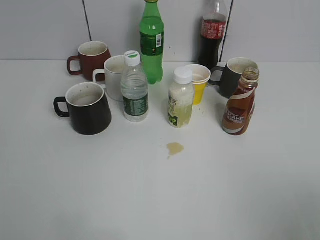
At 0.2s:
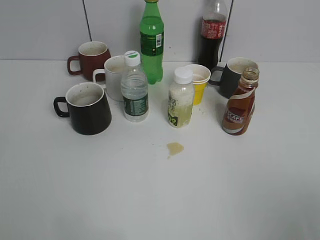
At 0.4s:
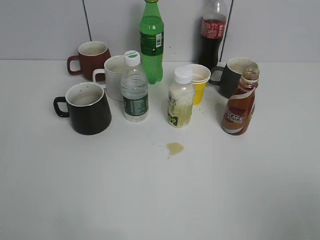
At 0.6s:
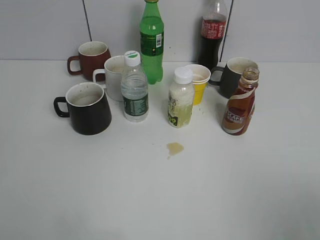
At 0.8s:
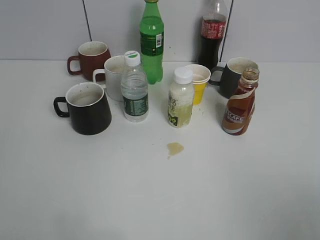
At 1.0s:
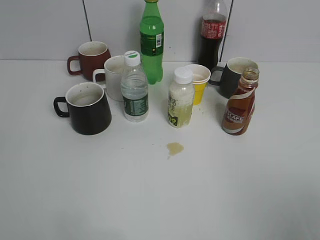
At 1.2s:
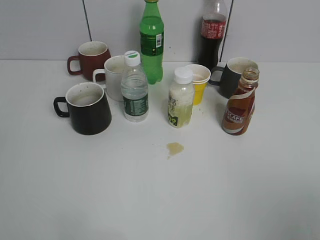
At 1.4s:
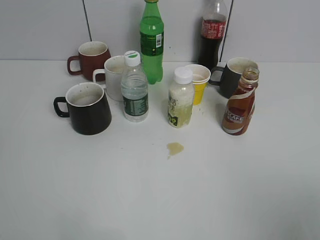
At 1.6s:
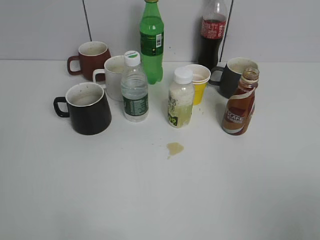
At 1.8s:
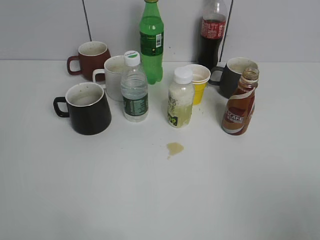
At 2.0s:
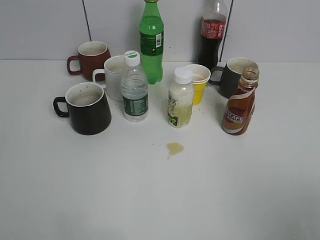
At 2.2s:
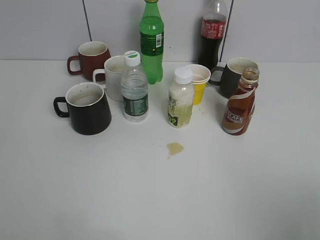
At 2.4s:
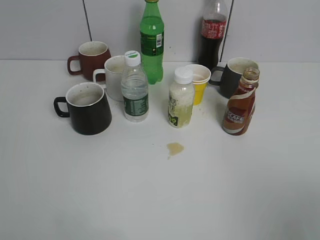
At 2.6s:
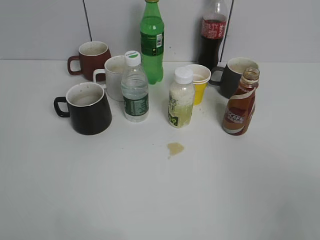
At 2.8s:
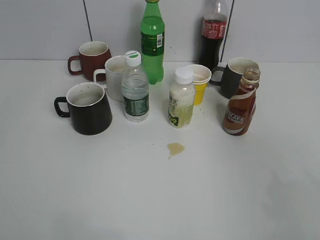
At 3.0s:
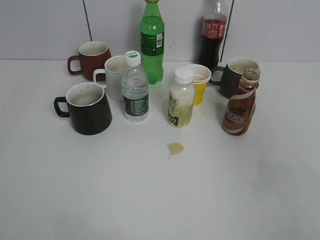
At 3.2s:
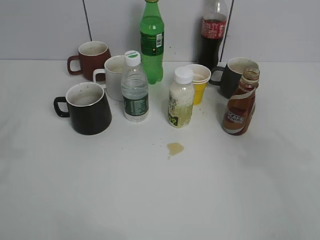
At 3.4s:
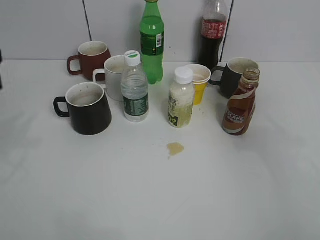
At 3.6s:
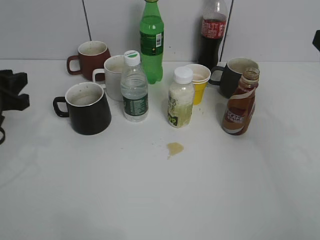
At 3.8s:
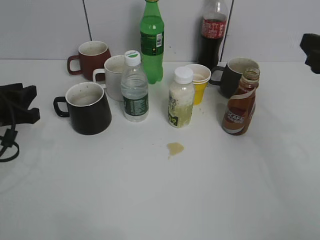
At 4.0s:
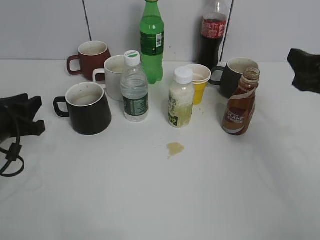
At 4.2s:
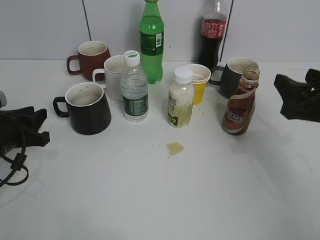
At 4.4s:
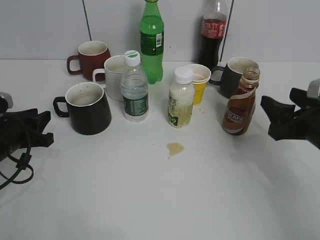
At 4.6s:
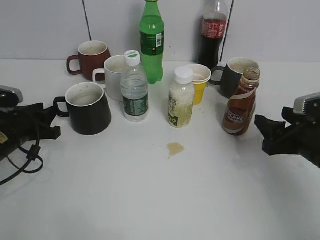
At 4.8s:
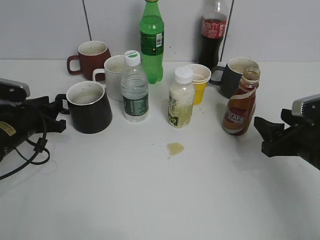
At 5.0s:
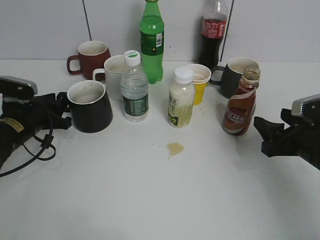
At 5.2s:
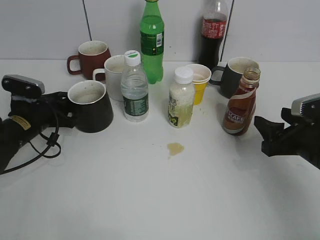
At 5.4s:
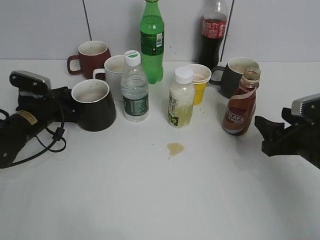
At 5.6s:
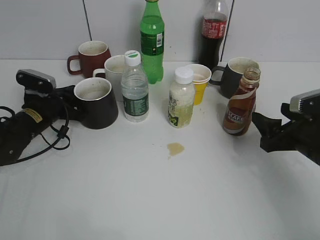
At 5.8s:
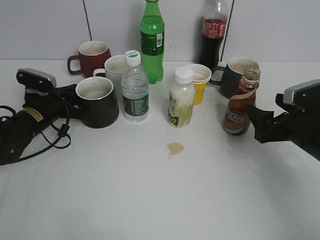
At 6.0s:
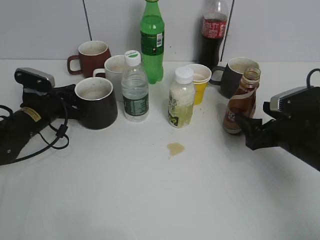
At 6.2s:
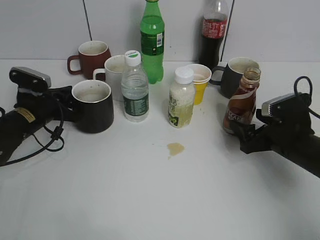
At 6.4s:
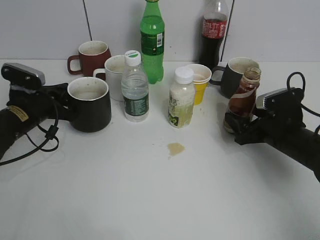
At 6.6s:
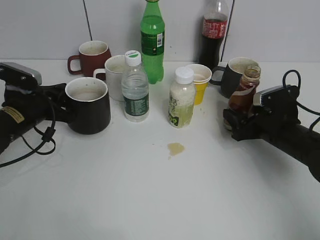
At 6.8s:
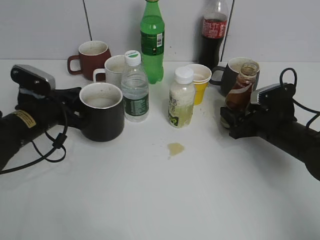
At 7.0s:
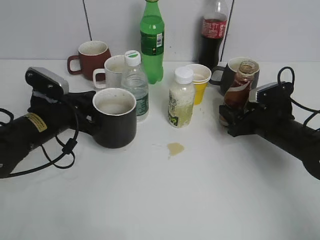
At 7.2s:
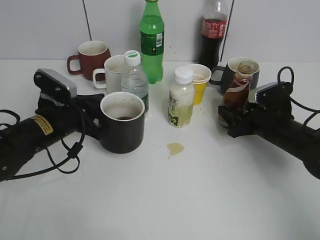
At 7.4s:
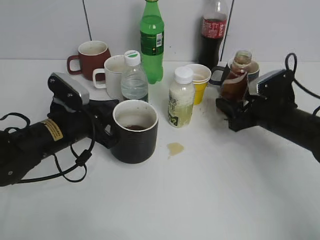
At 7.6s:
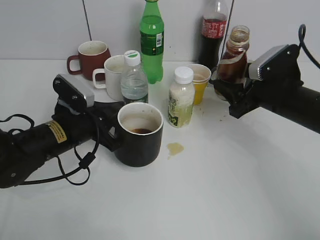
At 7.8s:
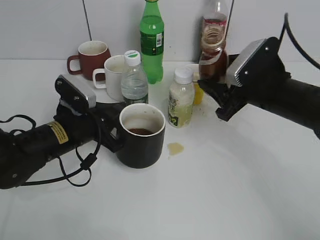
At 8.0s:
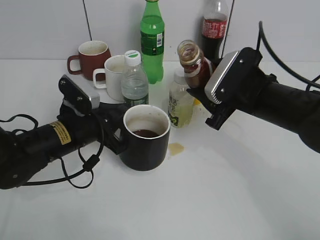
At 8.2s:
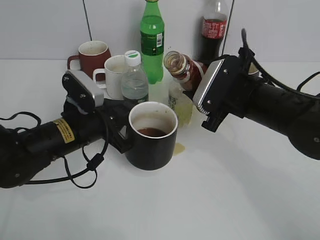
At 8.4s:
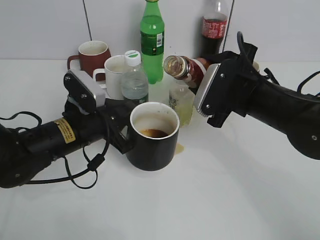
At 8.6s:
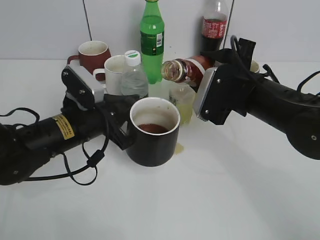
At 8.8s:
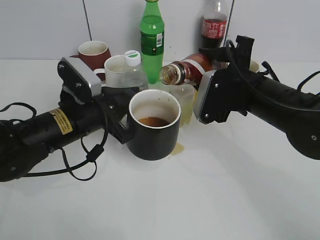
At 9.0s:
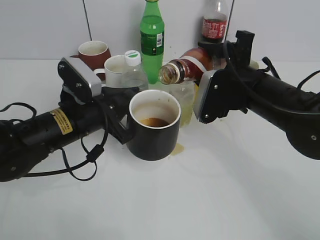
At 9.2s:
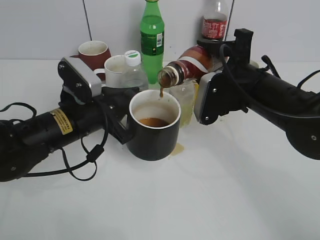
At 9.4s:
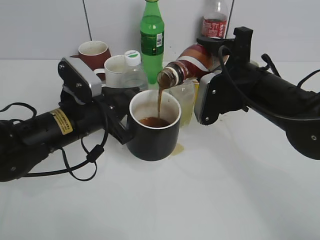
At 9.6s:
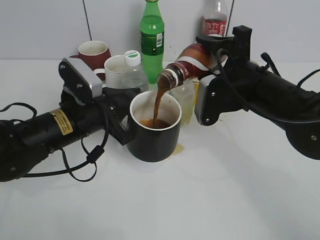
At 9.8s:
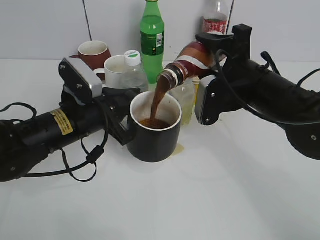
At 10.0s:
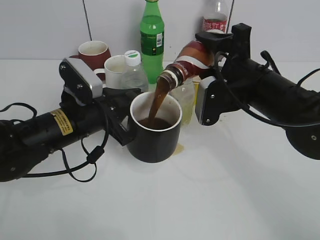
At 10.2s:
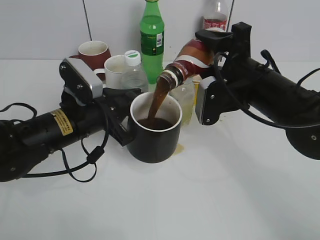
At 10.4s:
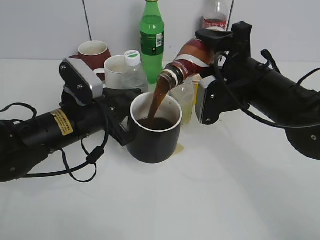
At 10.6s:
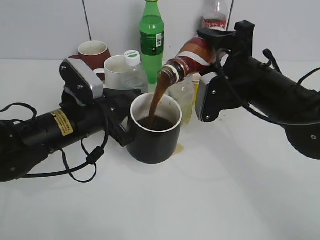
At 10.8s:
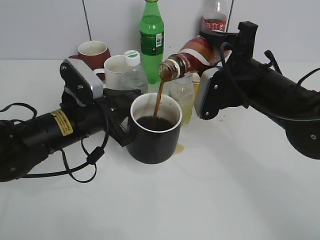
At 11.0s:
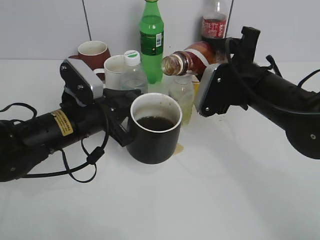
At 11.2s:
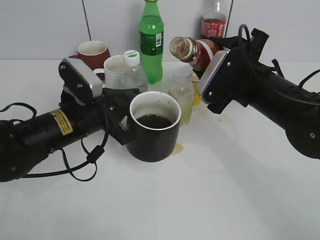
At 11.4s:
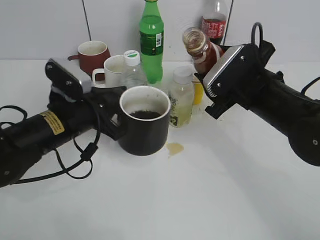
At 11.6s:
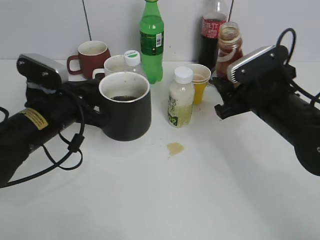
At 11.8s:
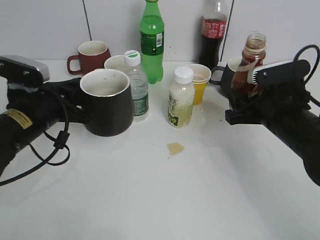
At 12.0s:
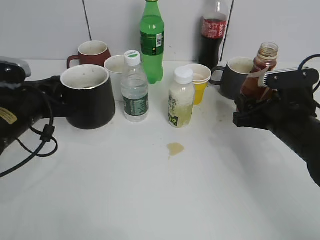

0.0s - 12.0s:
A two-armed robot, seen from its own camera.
Step, 2.0s - 5.6s: Grasp the black cup with left gripper.
Step, 5.8s - 6.6s: Lift the black cup with left gripper.
Step, 6.8s - 11.2s: Pour the coffee from bottle to cup with right gripper.
1.6s - 3.0s: The right gripper is displaced forward by roughly 10 cm.
3.0s - 4.4s: The grippers both shift downward and forward by about 25 cm.
4.4s - 6.0s: The right gripper goes some 5 cm downward, and opens its fingers. Meanwhile the left gripper shifts approximately 10 cm forward, and closes up.
6.0s - 7.6s: The right gripper travels forward by about 5 cm, and closes. Meanwhile the left gripper shifts approximately 10 cm to the right and backward.
7.6s - 9.0s: The right gripper heads to the left and upward, covering about 10 cm.
9.0s - 10.4s: The grippers stay close to where they were, moving slightly.
10.4s - 12.0s: The left gripper is displaced to the left by about 10 cm. The right gripper travels to the right and downward by about 10 cm.

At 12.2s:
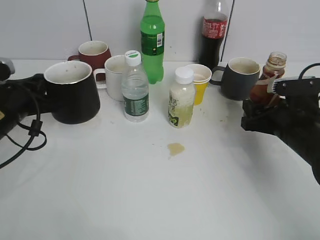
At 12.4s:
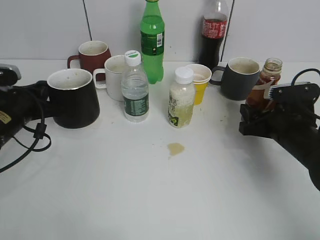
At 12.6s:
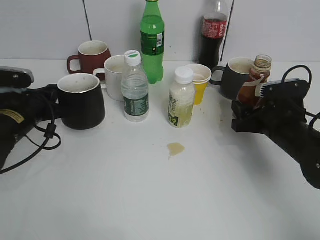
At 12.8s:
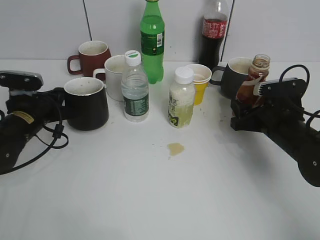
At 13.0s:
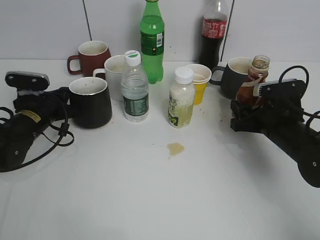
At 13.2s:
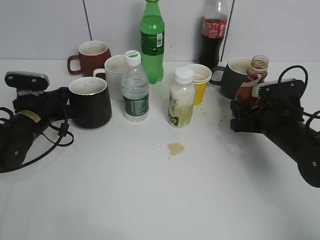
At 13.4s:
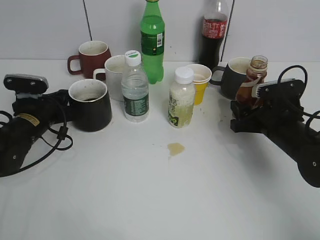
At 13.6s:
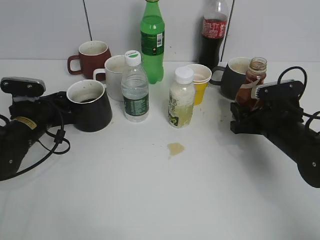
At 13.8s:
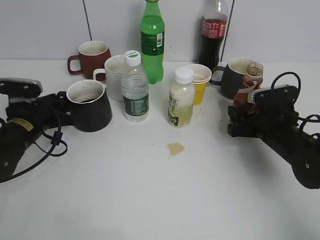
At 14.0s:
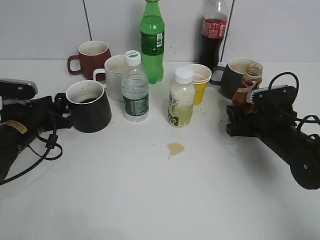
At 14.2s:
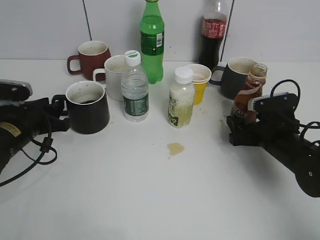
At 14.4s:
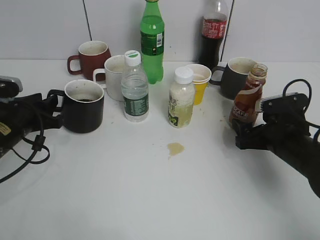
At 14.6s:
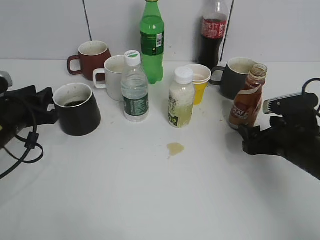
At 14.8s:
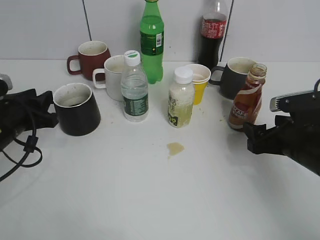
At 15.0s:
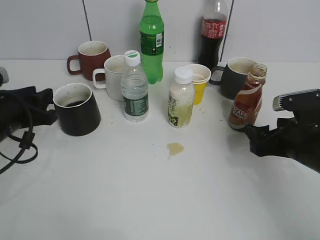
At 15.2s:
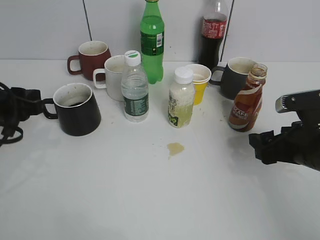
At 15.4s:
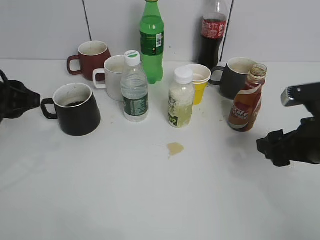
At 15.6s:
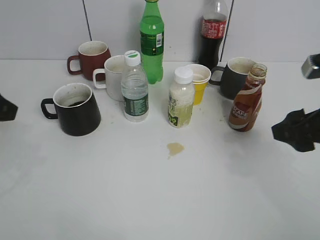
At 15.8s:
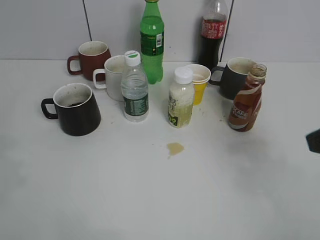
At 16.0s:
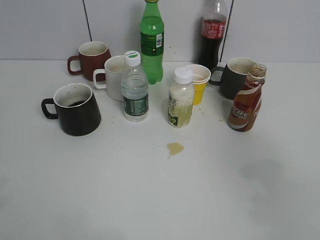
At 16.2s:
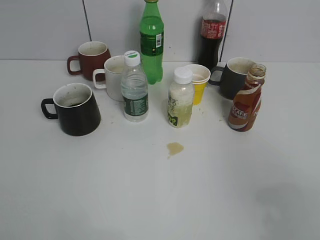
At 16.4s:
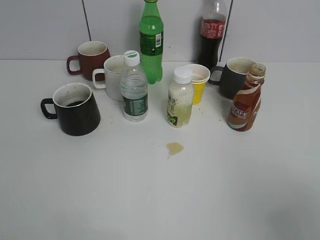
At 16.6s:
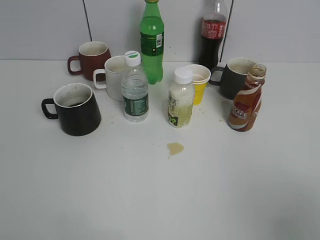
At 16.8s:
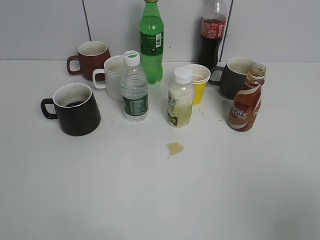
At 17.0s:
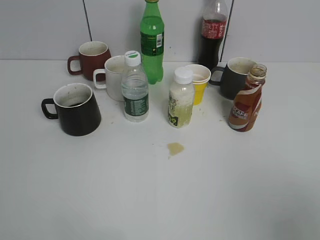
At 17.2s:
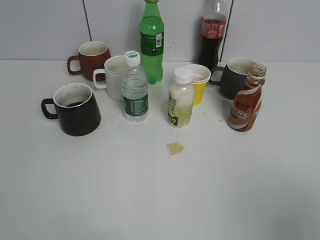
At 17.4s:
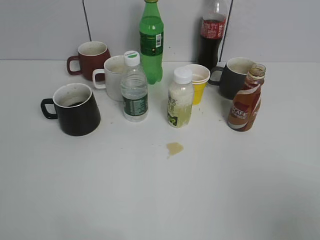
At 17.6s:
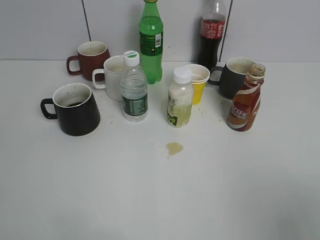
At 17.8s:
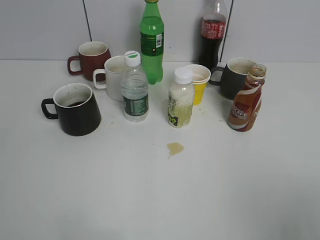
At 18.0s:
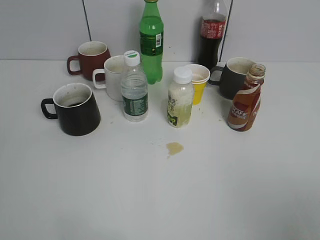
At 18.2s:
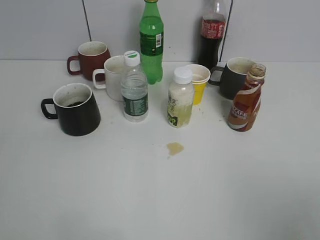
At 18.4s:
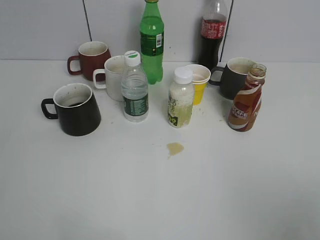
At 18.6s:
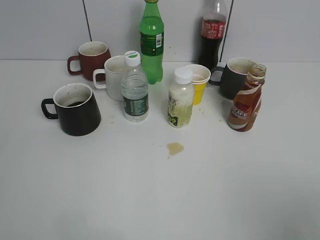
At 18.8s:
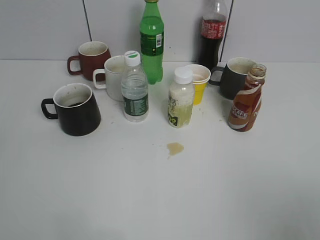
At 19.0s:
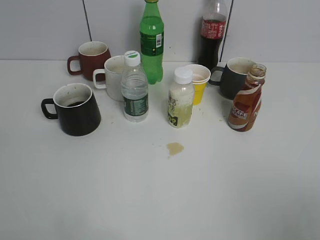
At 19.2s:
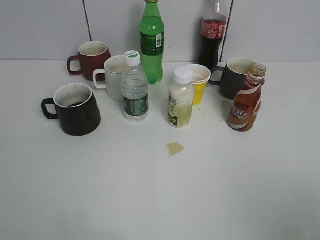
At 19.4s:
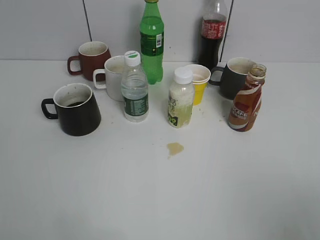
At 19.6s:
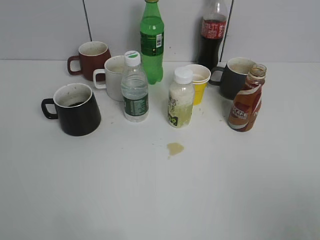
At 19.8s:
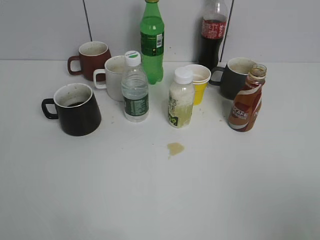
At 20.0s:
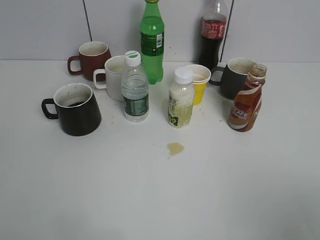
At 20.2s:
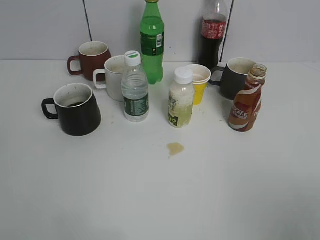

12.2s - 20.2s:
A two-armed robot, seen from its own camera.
Step, 12.2s - 14.4s: Place the black cup on the table with left gripper.
12.2s - 13.8s: The left gripper travels downward by roughly 5 cm, and opens.
13.8s - 15.4s: The left gripper travels upward and backward by about 15 cm, while the right gripper travels backward and upward by roughly 10 cm, and opens its fingers.
15.4s - 17.0s: The left gripper goes approximately 20 cm backward. The right gripper goes some 25 cm backward and upward.
18.6s - 20.2s: Neither gripper changes place.

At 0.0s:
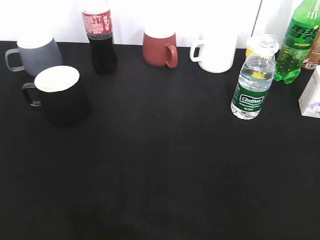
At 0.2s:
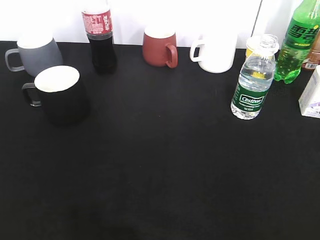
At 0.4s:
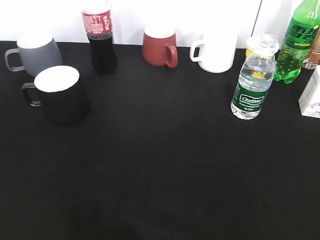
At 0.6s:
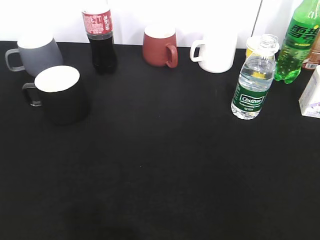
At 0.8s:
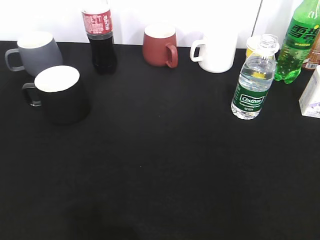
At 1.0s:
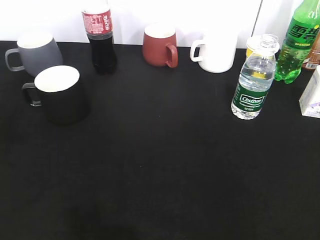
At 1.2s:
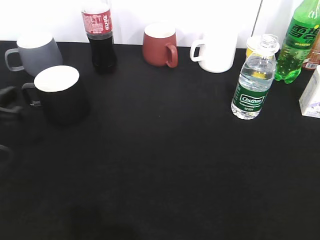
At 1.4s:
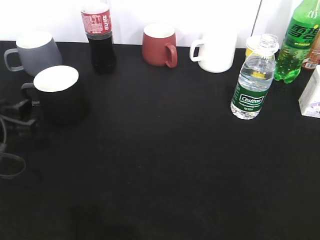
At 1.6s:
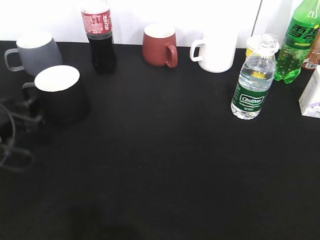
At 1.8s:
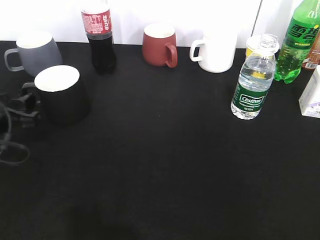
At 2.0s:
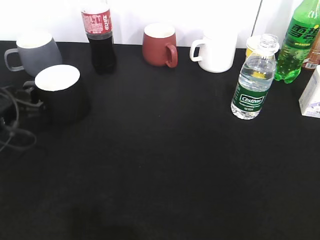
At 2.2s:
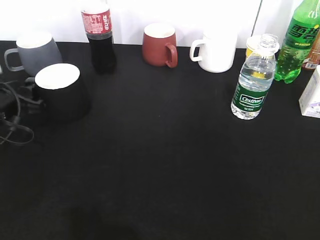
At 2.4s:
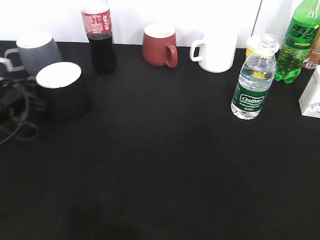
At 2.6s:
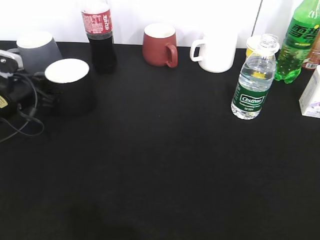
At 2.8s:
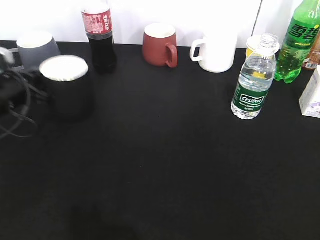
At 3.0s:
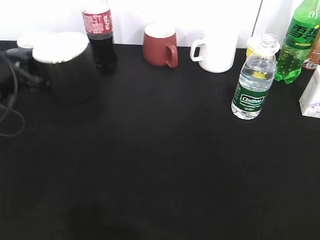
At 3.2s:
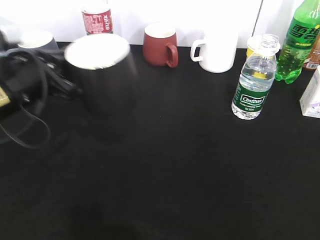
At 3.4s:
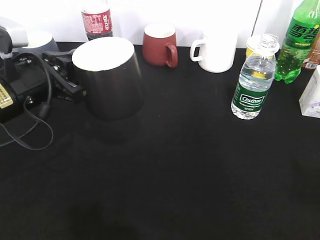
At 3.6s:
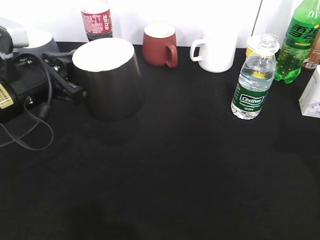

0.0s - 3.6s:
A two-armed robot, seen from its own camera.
Step, 0.6s - 2.6s: Grasp the black cup with left gripper.
Step, 2.8s - 3.2s: Lift the black cup with left gripper.
0.0s - 1.8s: The left gripper travels forward and downward by some 30 cm, and opens.
1.8s - 3.6s: The left gripper travels to the right and upward by roughly 10 cm, and closes up. The right gripper moves forward, about 15 cm.
